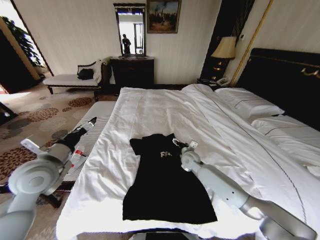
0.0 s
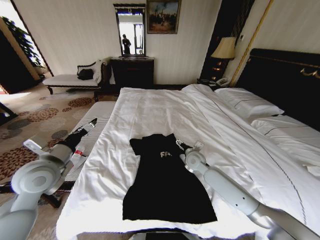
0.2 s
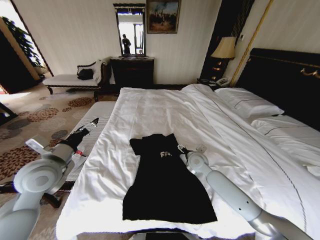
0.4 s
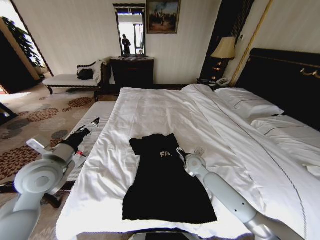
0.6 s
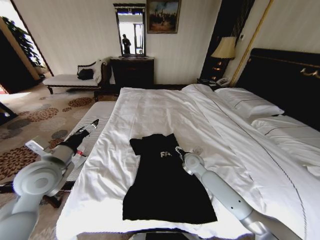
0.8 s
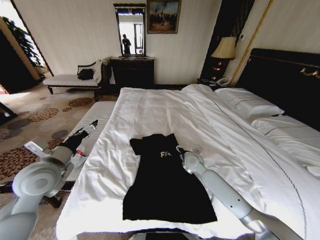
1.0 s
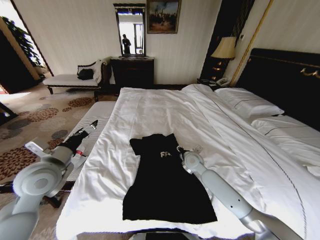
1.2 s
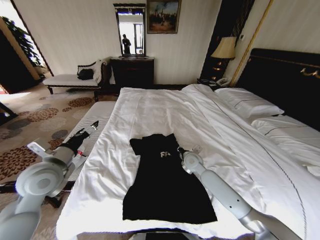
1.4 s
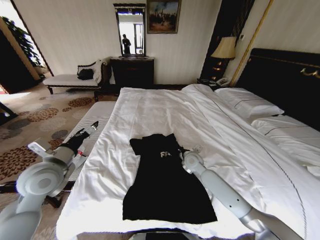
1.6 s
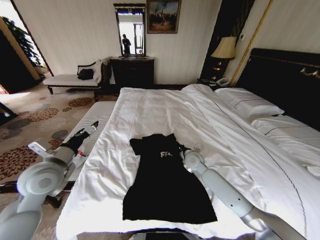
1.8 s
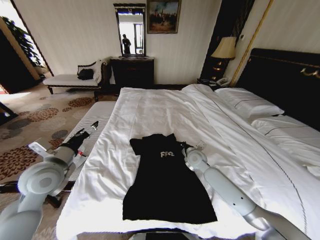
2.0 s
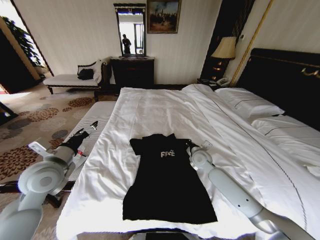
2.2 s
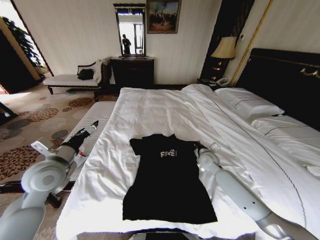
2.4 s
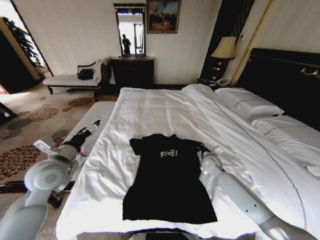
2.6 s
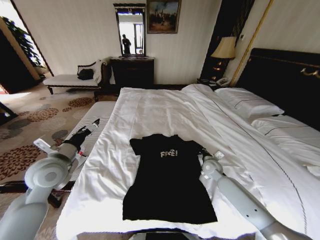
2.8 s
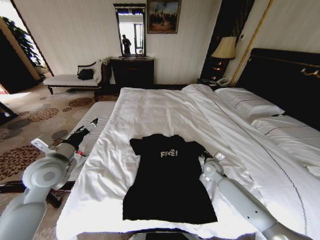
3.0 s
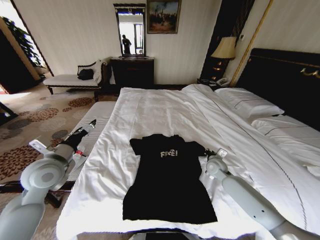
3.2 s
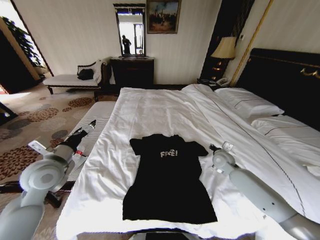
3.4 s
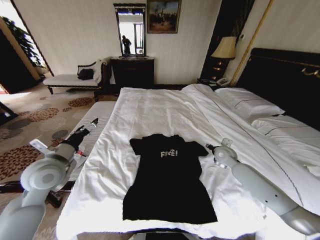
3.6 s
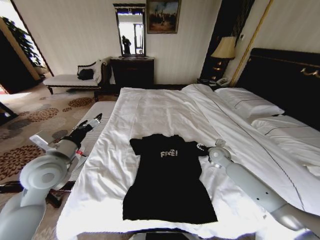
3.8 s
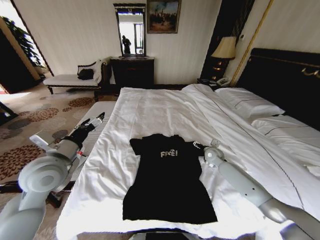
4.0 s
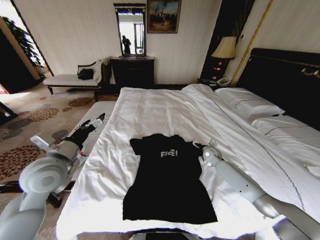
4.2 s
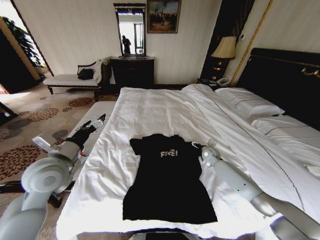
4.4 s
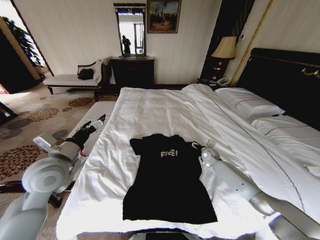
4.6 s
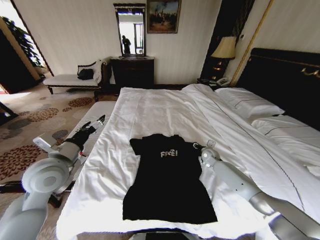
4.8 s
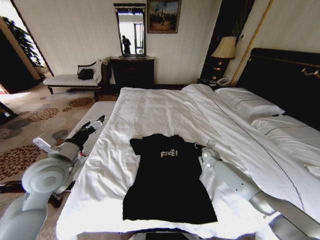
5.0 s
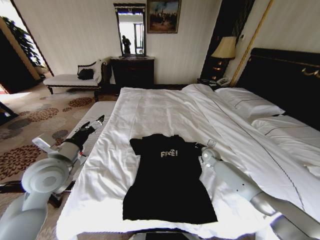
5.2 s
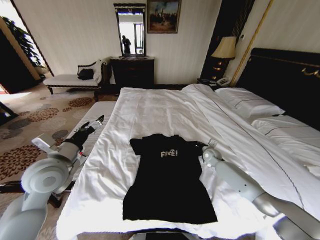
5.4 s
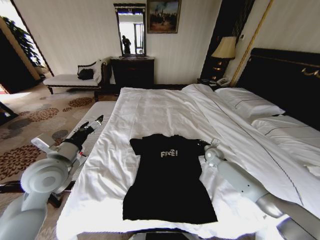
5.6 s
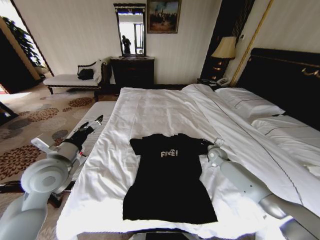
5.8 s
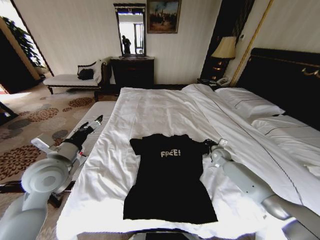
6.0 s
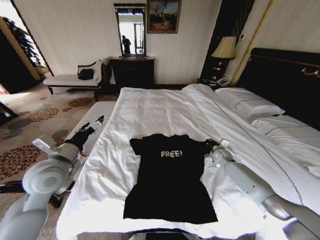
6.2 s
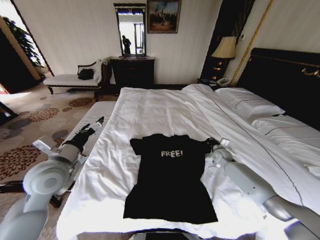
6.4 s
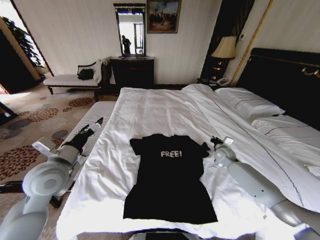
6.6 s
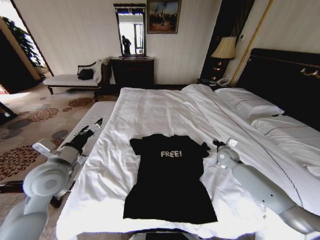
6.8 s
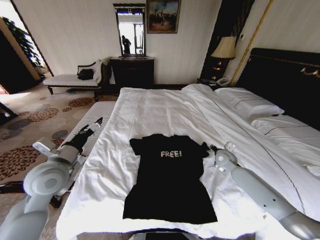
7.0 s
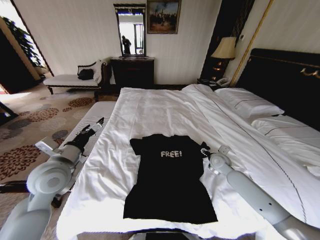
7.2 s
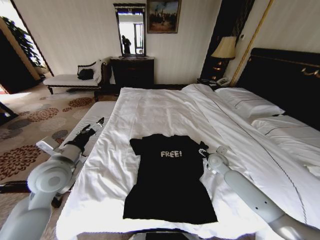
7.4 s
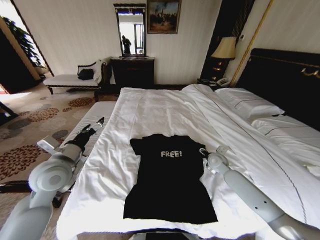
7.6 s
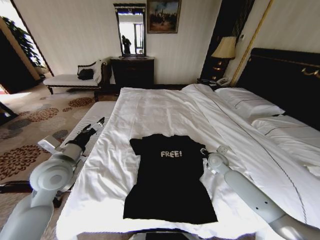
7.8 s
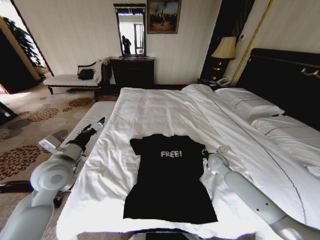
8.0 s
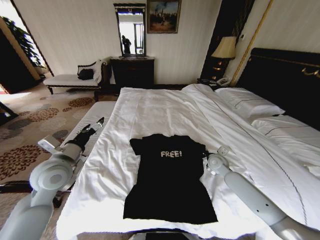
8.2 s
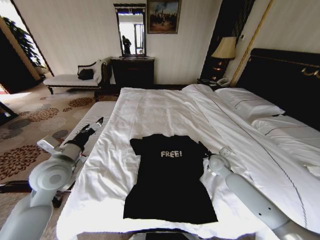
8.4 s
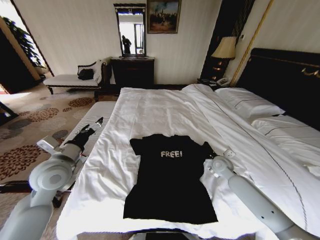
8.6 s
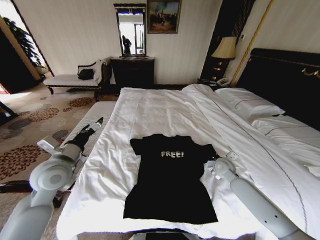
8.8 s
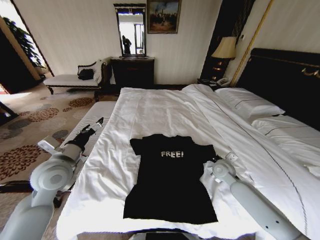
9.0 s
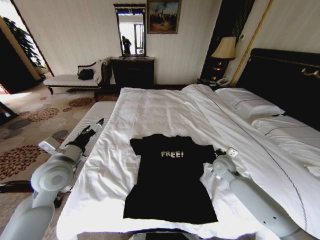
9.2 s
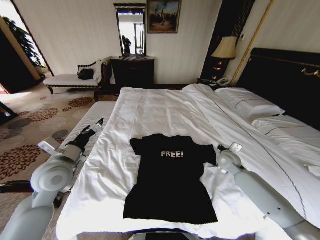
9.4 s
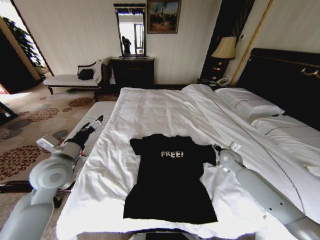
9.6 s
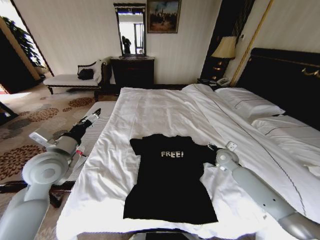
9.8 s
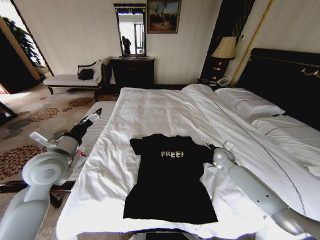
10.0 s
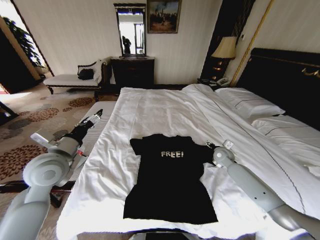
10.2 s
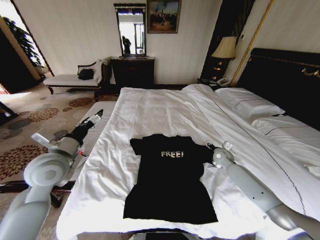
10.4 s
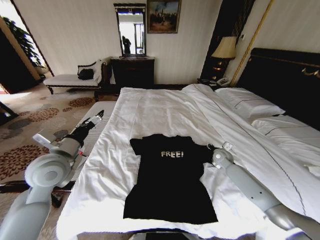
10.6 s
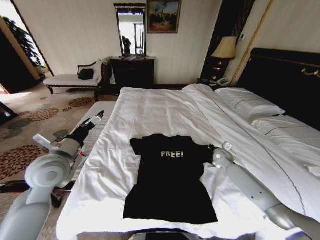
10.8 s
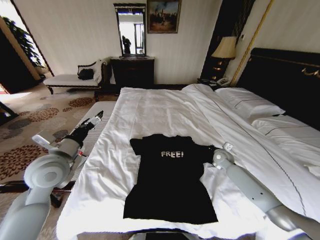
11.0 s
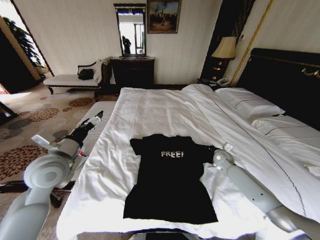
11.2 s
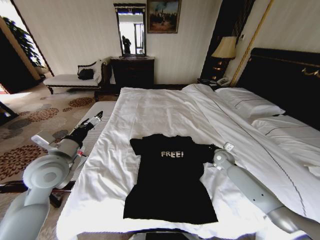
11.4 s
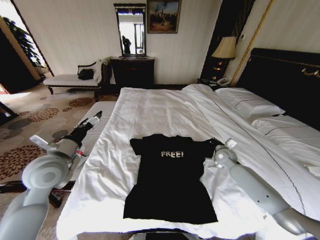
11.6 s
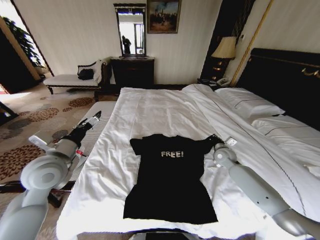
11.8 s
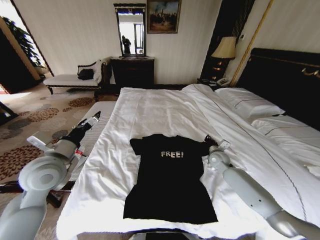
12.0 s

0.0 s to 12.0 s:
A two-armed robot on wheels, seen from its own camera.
Task of the whole recording: Fold the clothes on the bed.
0.0 to 1.6 s: The right gripper closes.
1.6 to 3.0 s: The right gripper shifts approximately 10 cm to the right.
3.0 to 4.4 s: The right gripper goes approximately 10 cm forward, and opens up.
4.4 to 6.0 s: The right gripper goes approximately 5 cm to the right, and closes.
6.0 to 7.6 s: The right gripper travels to the left and backward by about 10 cm, and opens up.
7.6 to 9.0 s: The right gripper closes up.
9.0 to 10.4 s: The right gripper heads forward, covering about 10 cm, and opens up.
10.4 to 12.0 s: The right gripper closes.

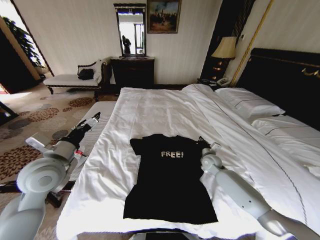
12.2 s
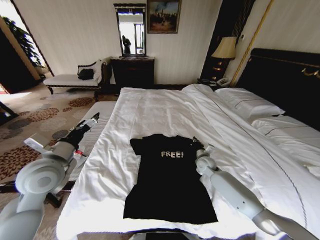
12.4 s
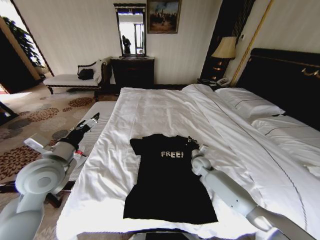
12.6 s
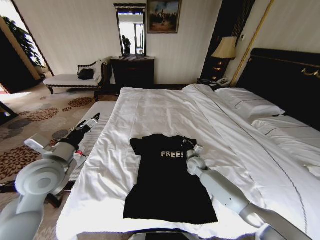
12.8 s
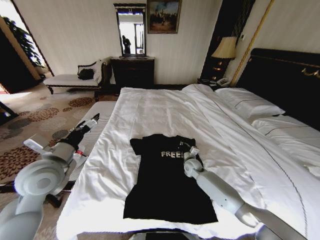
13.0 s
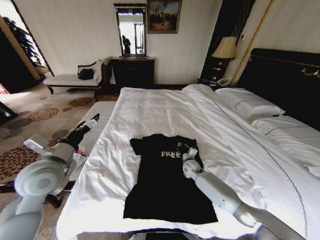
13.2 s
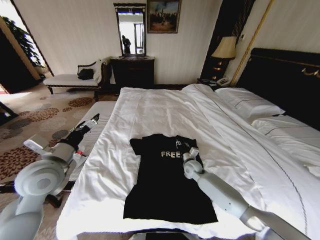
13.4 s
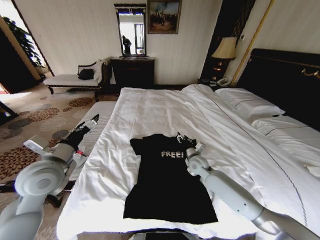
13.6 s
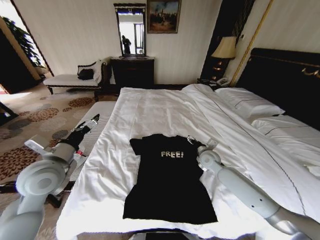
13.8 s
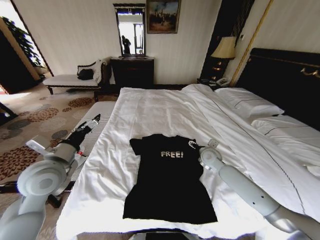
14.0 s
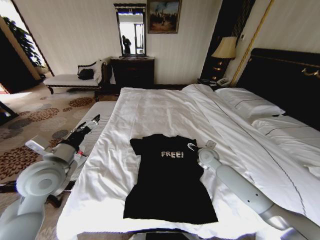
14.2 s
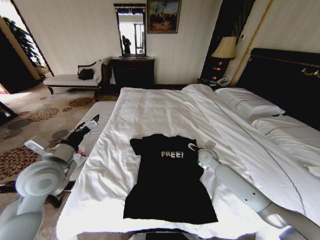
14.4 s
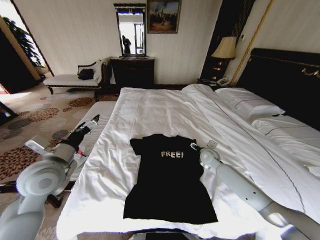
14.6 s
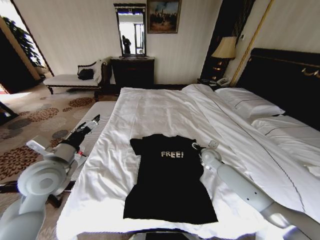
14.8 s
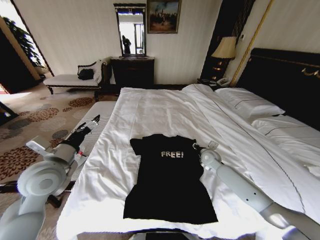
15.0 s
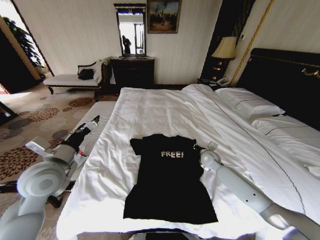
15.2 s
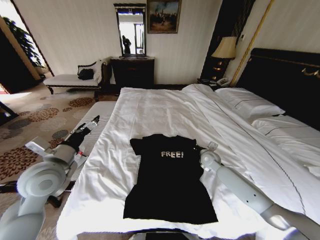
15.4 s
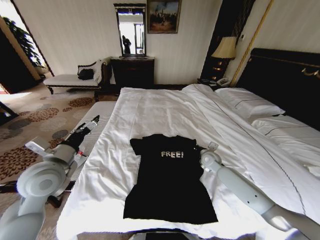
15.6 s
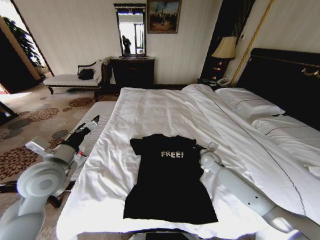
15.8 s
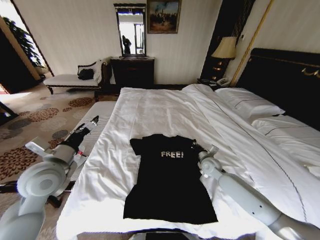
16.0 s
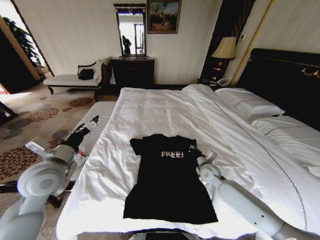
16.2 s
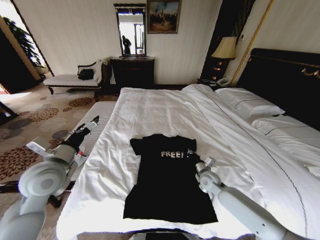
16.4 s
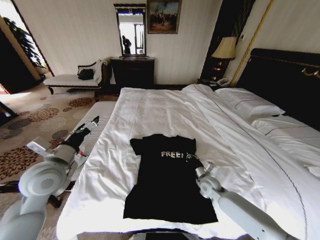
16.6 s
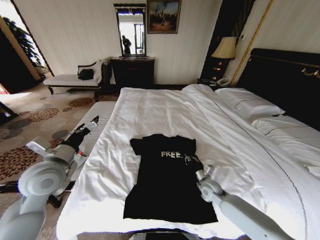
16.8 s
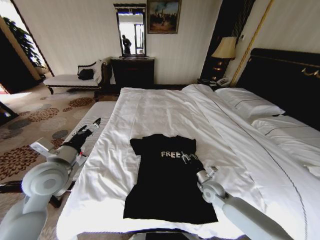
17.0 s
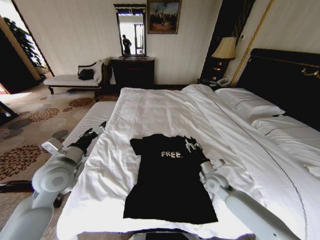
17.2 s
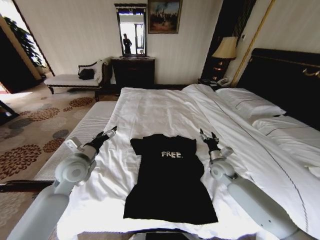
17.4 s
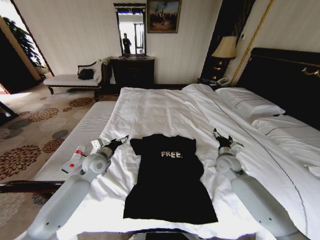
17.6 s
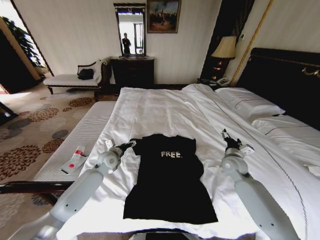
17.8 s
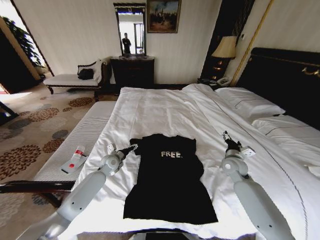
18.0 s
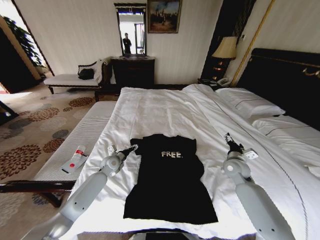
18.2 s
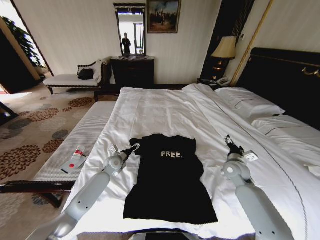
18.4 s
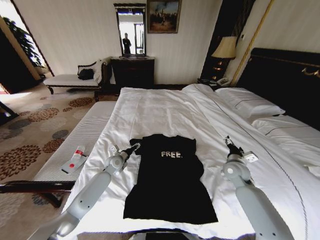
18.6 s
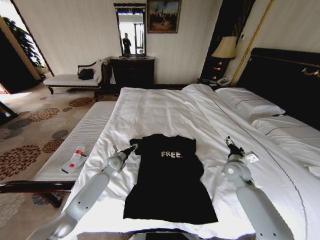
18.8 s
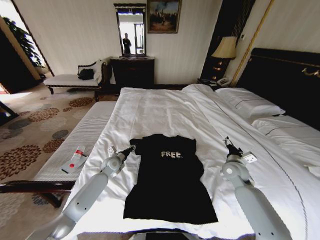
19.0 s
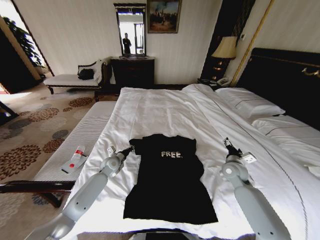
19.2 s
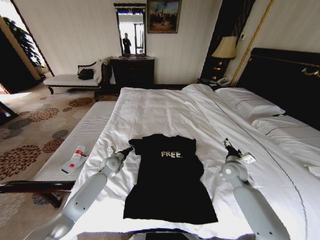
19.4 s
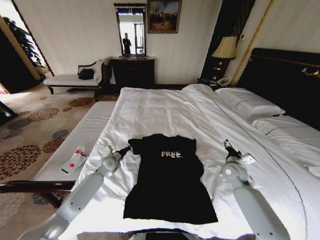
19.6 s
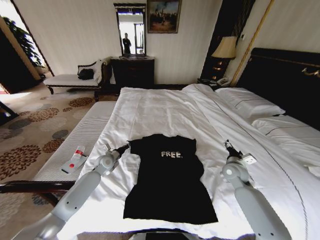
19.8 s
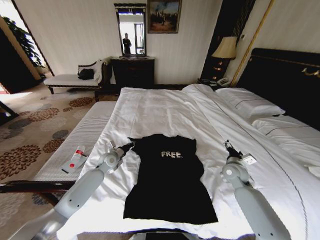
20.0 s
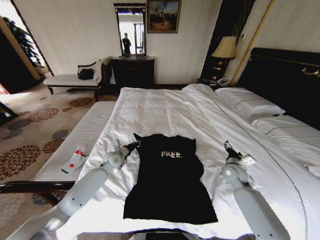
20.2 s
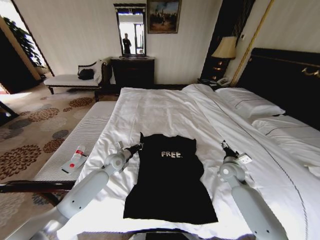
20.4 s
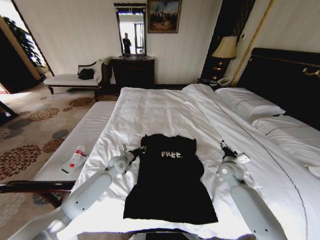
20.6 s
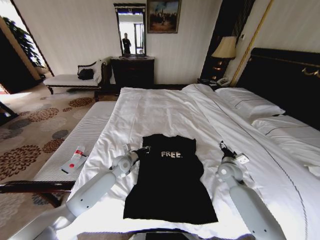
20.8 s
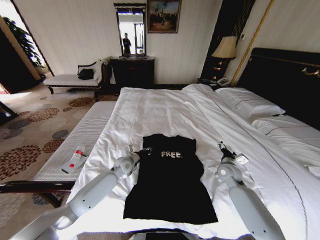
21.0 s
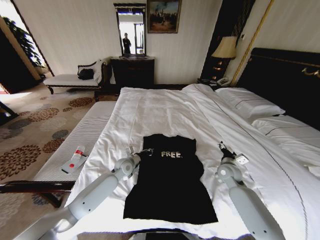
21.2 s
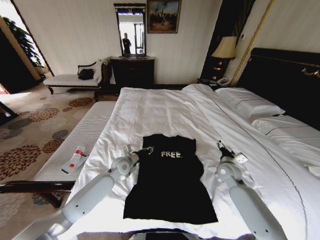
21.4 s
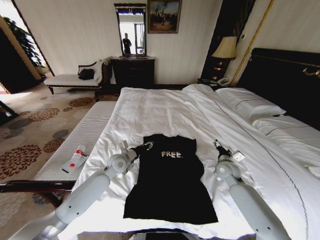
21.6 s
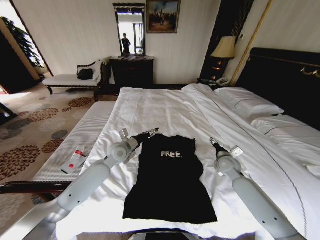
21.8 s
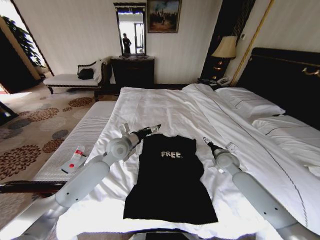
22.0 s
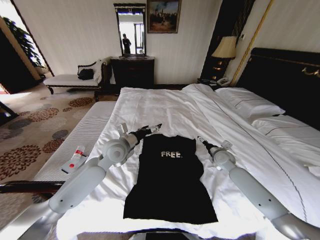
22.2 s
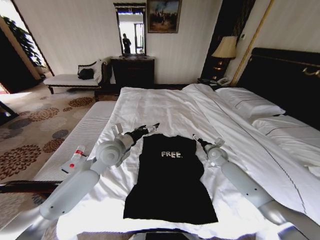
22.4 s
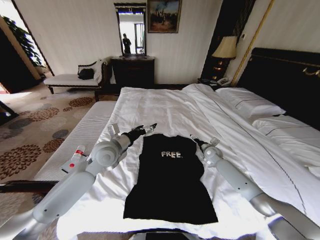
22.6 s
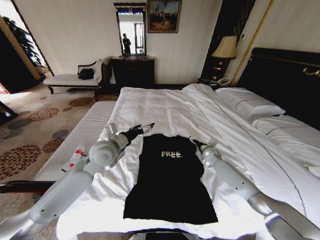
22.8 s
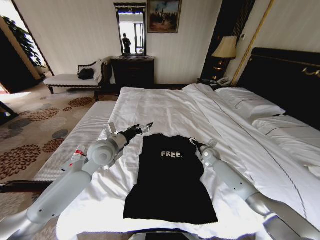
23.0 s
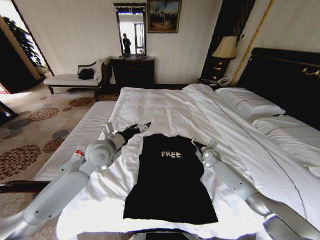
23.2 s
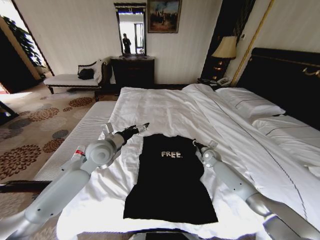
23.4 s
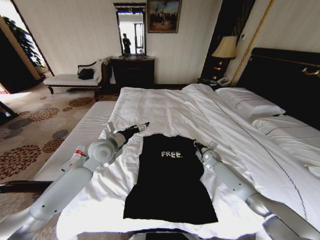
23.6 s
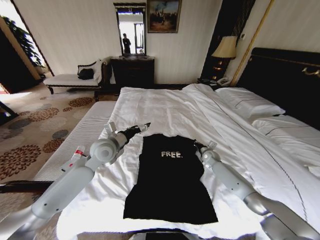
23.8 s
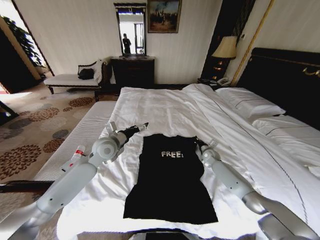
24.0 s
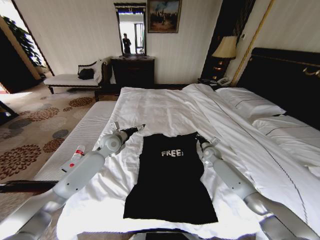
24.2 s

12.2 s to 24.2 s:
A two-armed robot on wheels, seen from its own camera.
Task of the whole recording: Fold the clothes on the bed.
12.2 to 13.8 s: The right gripper shifts some 5 cm upward, and opens up.
13.8 to 15.2 s: The right gripper changes place by roughly 5 cm, and closes up.
15.2 to 16.6 s: The right gripper moves backward and downward, about 15 cm.
16.6 to 18.2 s: The right gripper moves upward and to the right, approximately 15 cm, and opens up, while the left gripper shifts some 30 cm downward and forward.
18.2 to 19.8 s: The left gripper closes its fingers.
19.8 to 21.2 s: The left gripper shifts roughly 10 cm to the right.
21.2 to 22.6 s: The left gripper heads upward, covering roughly 20 cm, and opens; the right gripper moves forward, about 15 cm.
22.6 to 24.2 s: The left gripper shifts approximately 10 cm forward and downward. Meanwhile the right gripper closes up.
